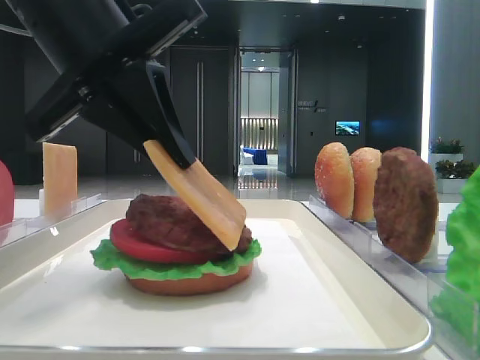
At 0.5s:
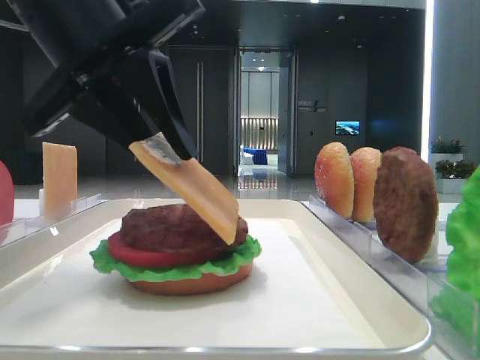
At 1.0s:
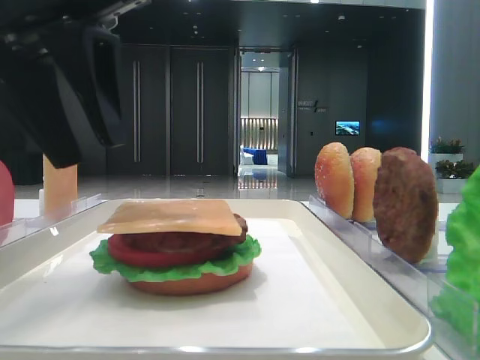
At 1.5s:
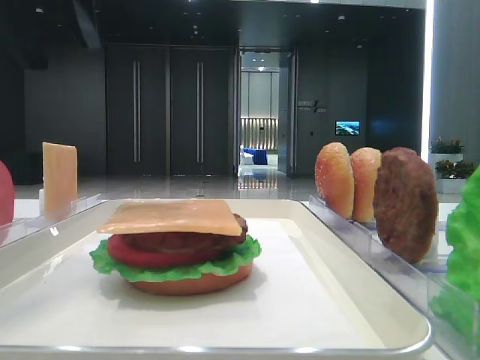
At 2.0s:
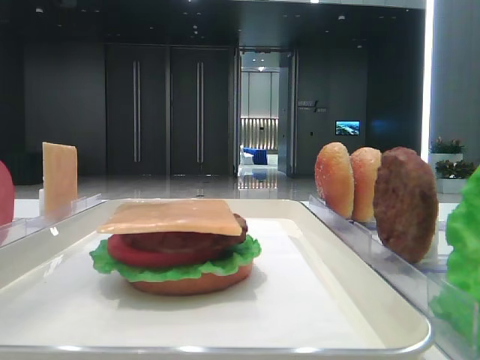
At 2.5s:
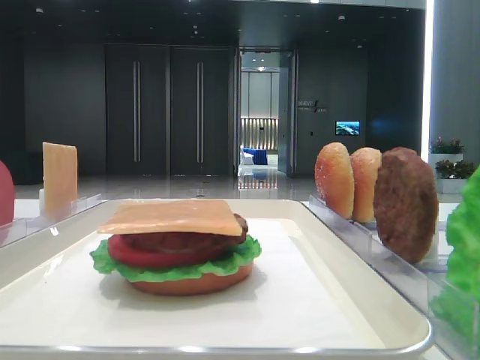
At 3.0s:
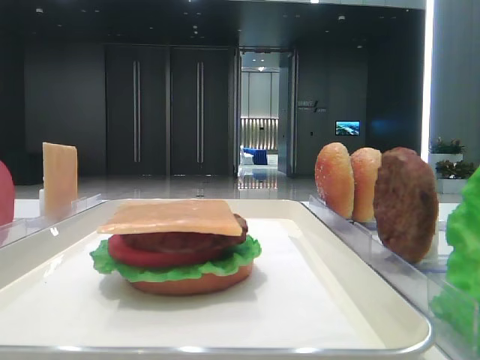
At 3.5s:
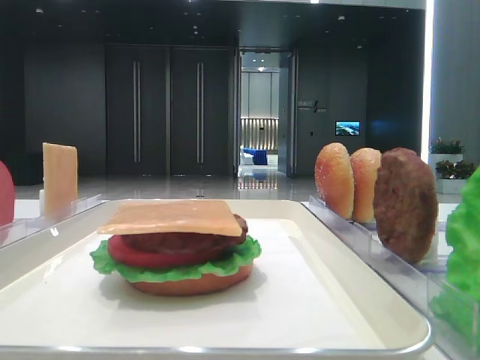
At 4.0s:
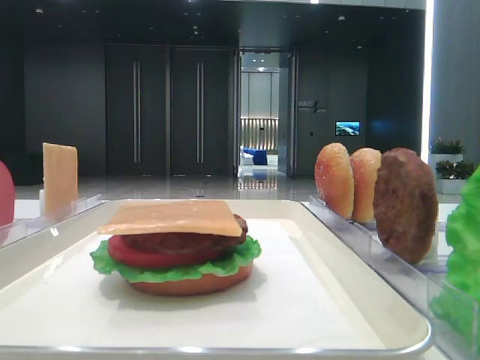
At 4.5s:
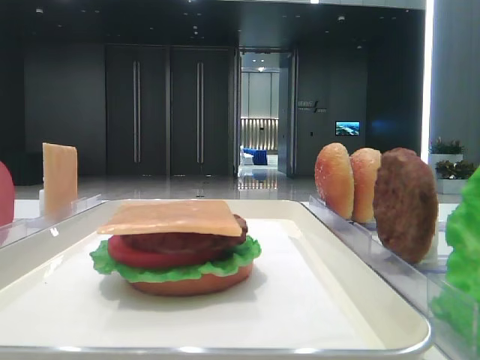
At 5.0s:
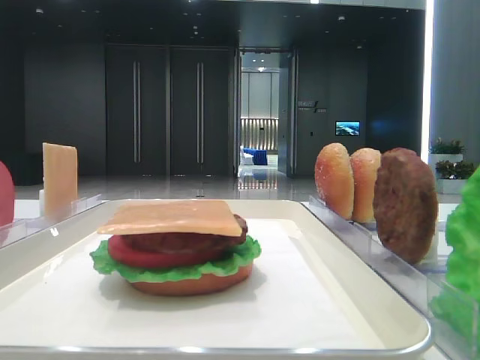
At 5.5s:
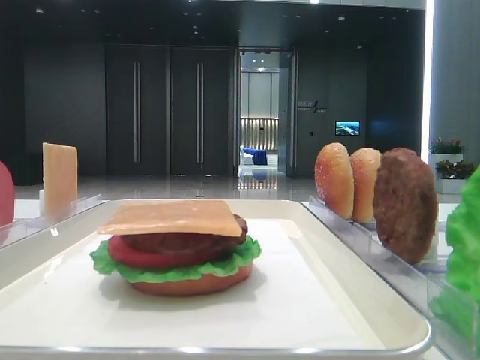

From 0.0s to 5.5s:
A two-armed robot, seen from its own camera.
From 0.0s to 2.0s: The left gripper shifts some 15 cm upward and to the left, and opens its fingers.
From 2.0s to 3.5s: The left gripper moves backward, to the left and downward, about 25 cm.

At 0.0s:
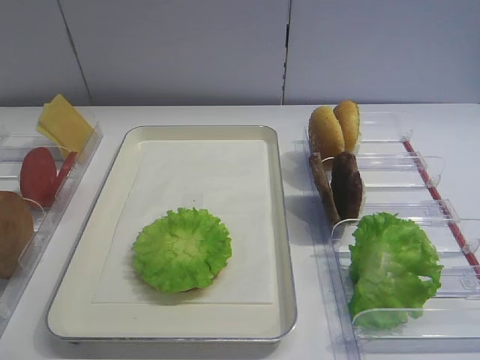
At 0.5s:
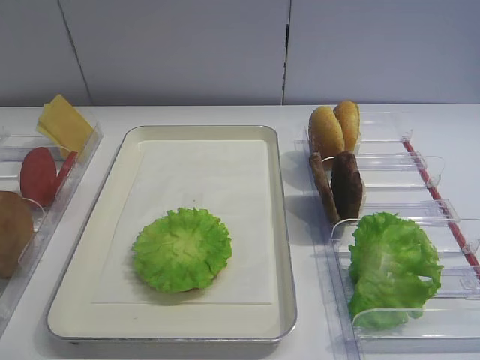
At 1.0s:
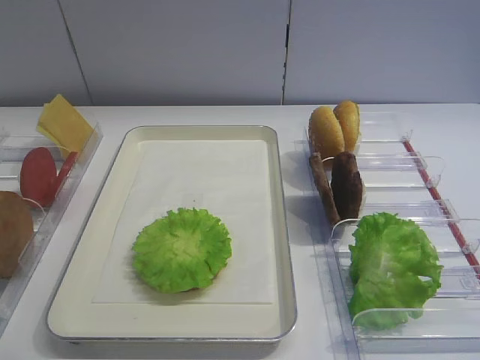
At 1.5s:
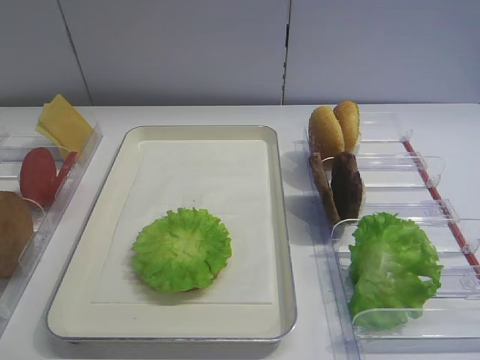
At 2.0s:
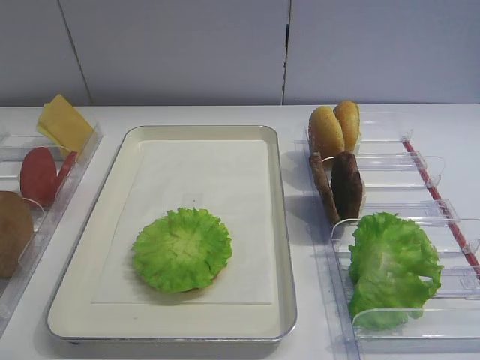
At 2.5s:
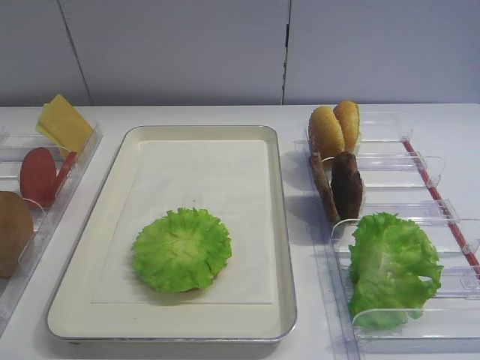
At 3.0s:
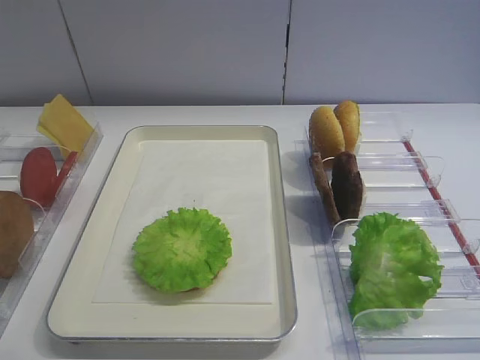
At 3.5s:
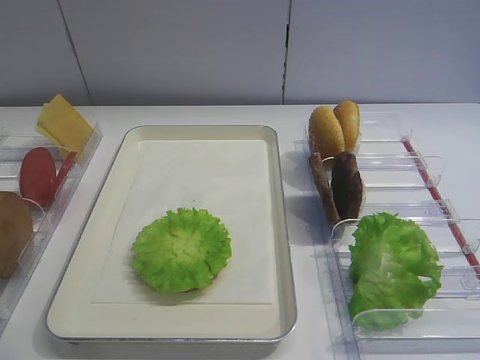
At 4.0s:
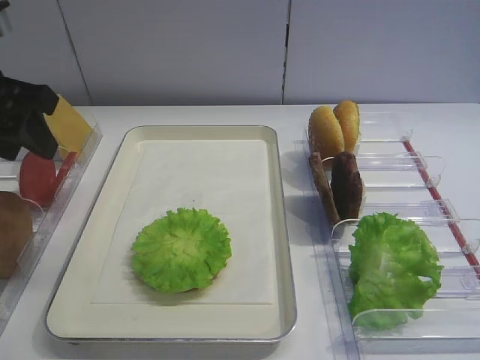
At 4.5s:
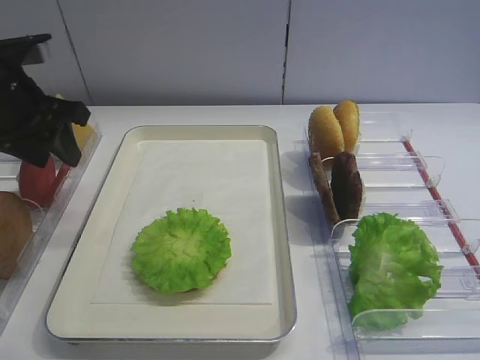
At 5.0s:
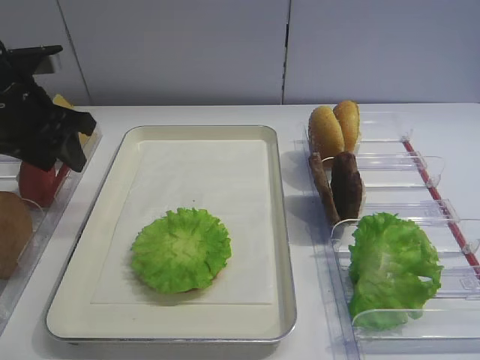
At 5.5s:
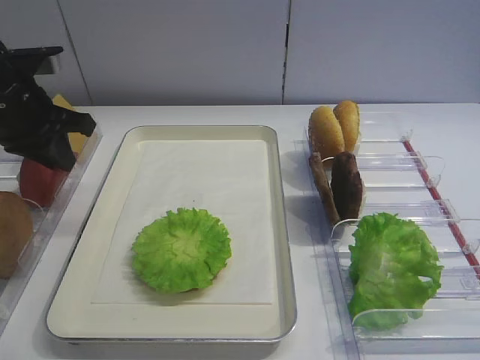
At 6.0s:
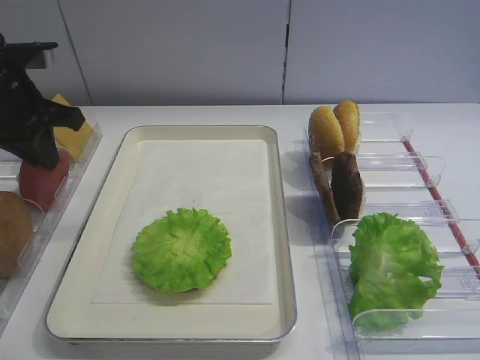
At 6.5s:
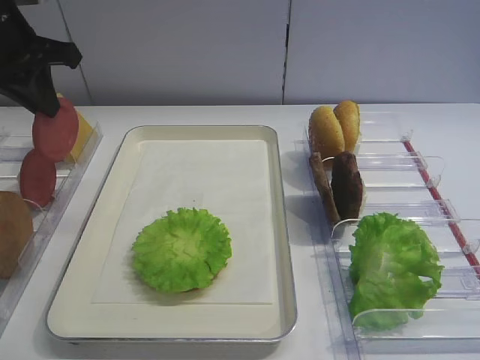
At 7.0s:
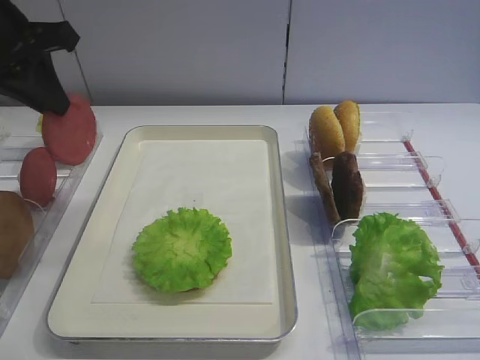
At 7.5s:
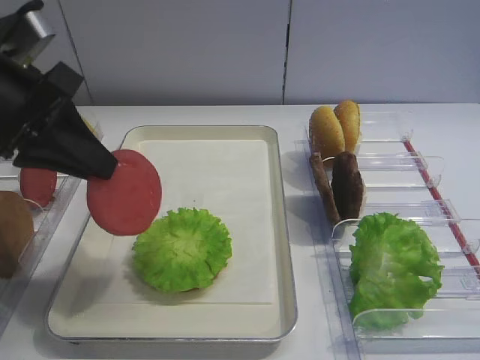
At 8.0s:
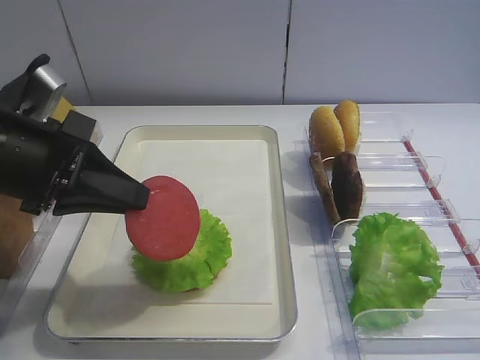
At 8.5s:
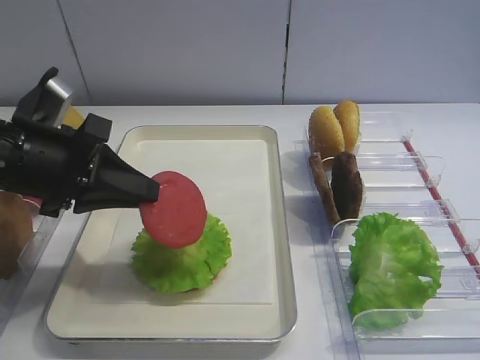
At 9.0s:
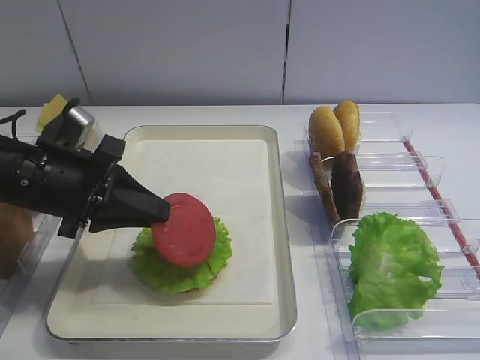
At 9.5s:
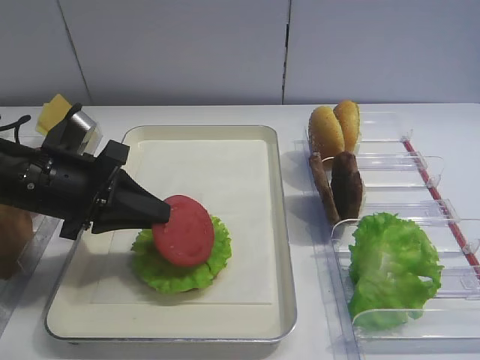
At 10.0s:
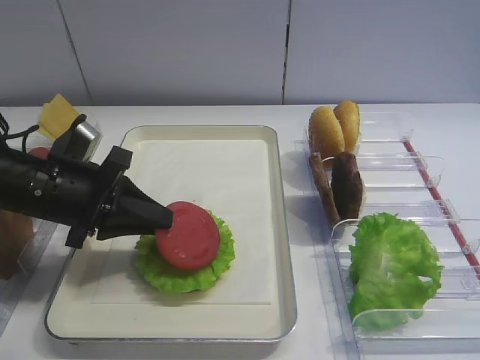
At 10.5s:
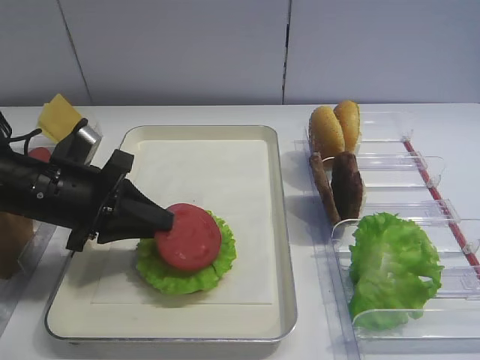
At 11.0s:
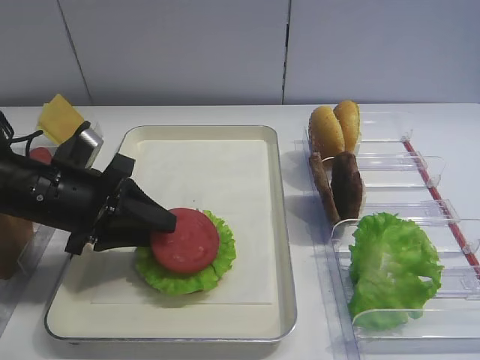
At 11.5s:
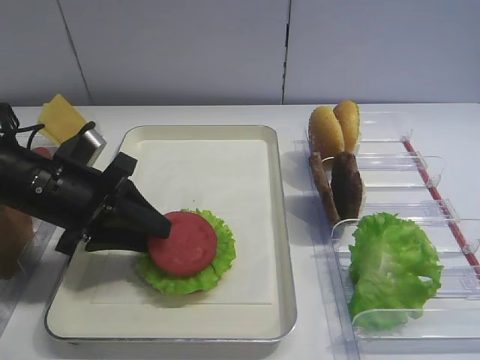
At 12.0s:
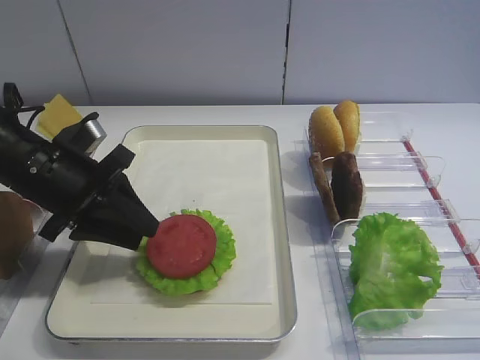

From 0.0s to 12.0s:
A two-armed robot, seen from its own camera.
Step, from 0.0s to 6.0s: Pick up the tomato slice with the left gripper.
Step, from 6.5s to 12.0s: Place the tomato slice on the lettuce leaf with the left gripper.
From 2.0s to 4.0s: The left gripper travels forward by about 30 cm.
From 4.0s to 6.0s: The left gripper moves forward and downward, about 10 cm, and closes up.
From 6.0s to 8.0s: The left gripper moves backward and to the right, approximately 15 cm.
From 8.0s to 10.0s: The left gripper shifts about 10 cm downward.
From 10.0s to 12.0s: The left gripper opens its fingers.

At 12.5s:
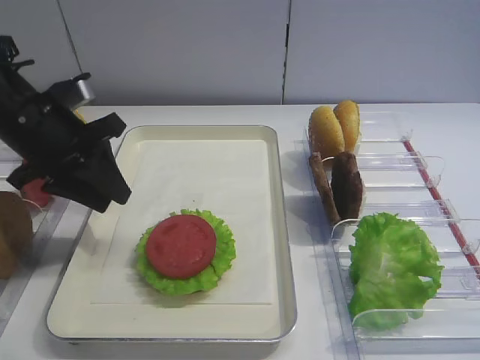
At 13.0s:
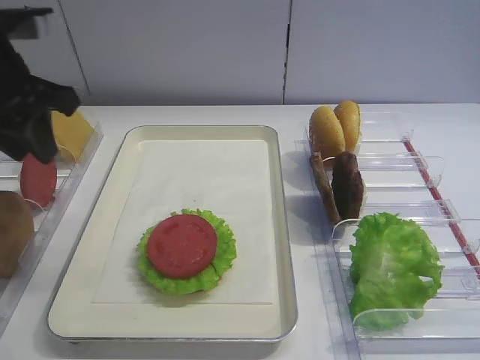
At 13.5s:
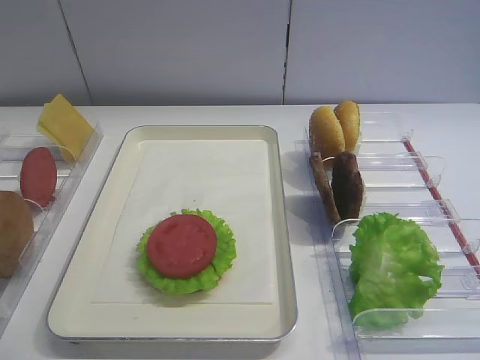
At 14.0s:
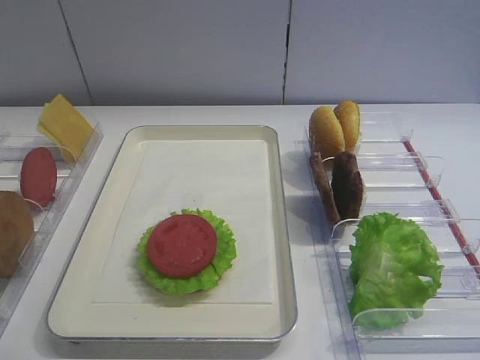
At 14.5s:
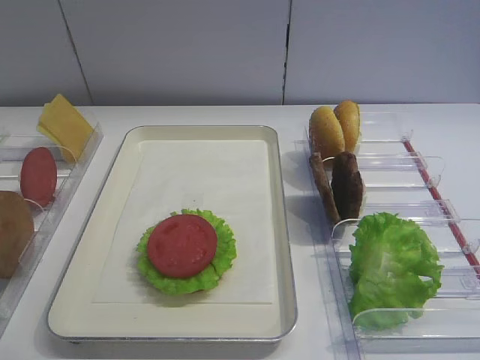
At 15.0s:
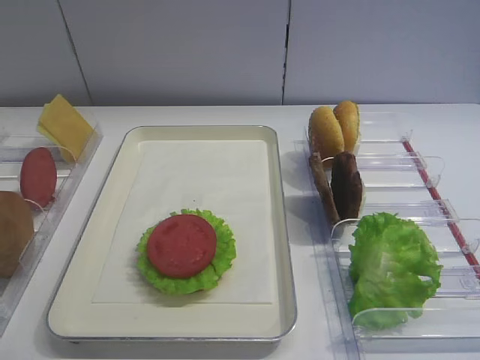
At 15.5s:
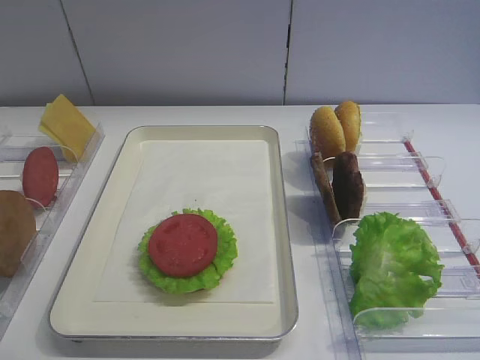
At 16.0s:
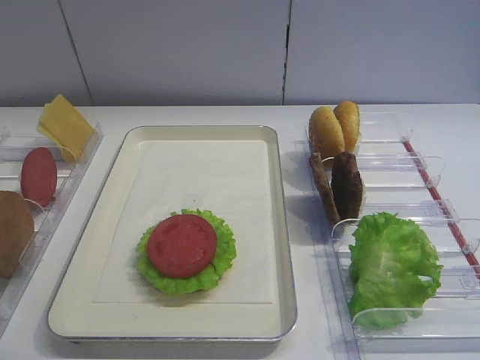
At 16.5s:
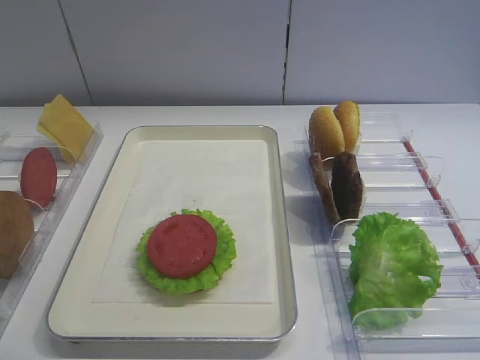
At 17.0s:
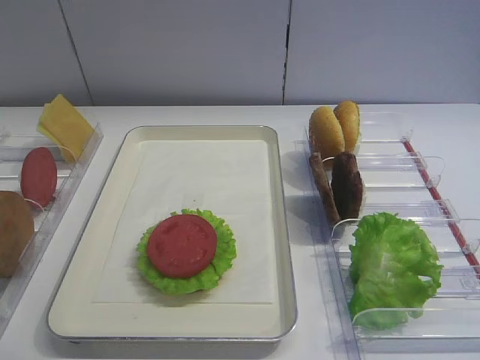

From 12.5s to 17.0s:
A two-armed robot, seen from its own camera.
From 12.5s to 14.5s: The left gripper goes some 30 cm backward.

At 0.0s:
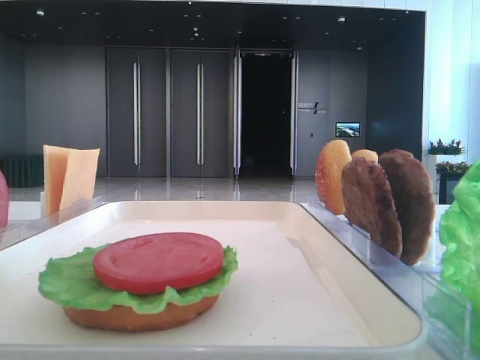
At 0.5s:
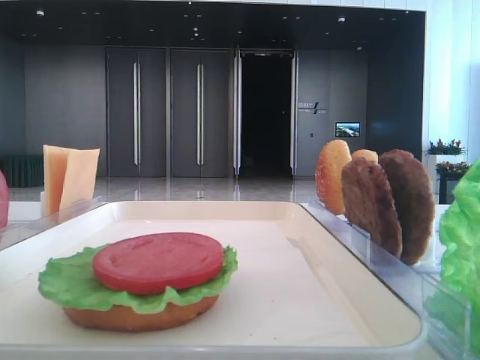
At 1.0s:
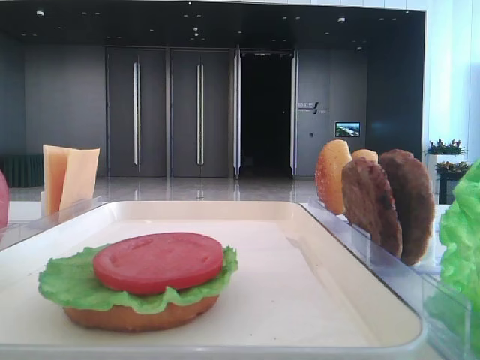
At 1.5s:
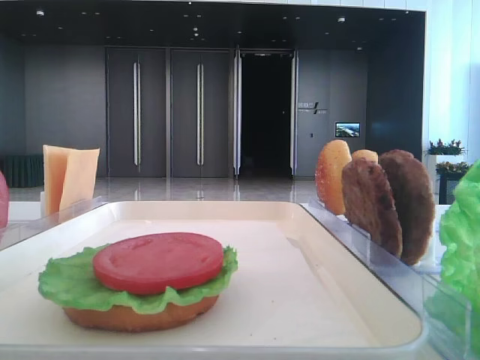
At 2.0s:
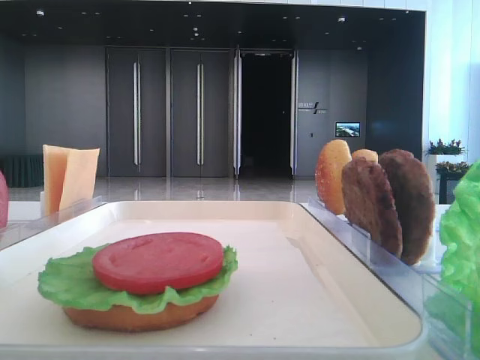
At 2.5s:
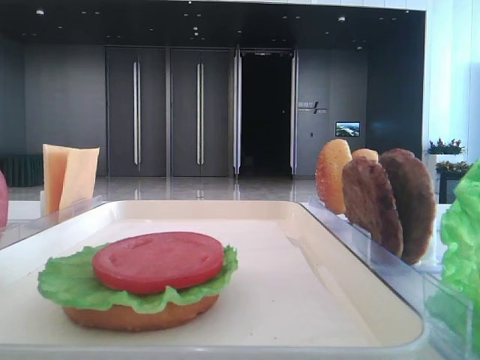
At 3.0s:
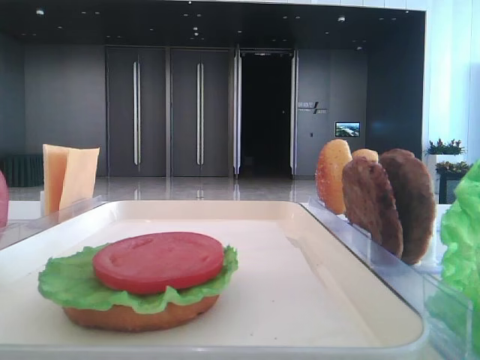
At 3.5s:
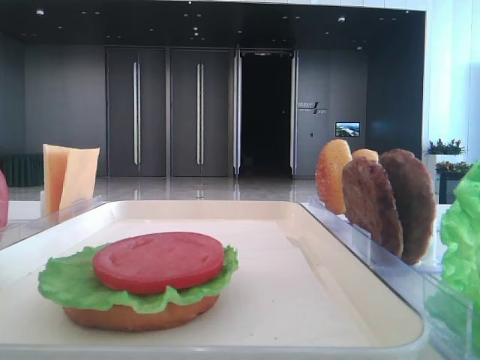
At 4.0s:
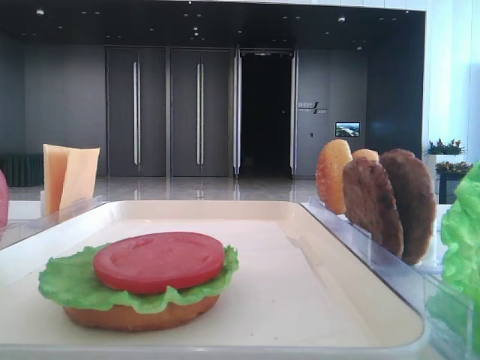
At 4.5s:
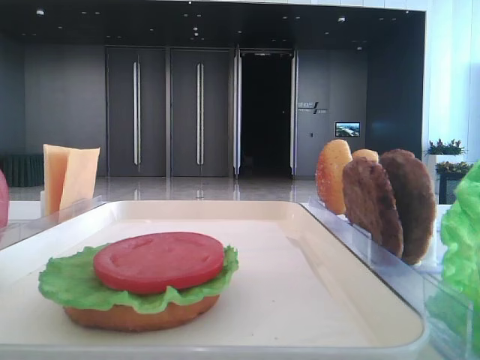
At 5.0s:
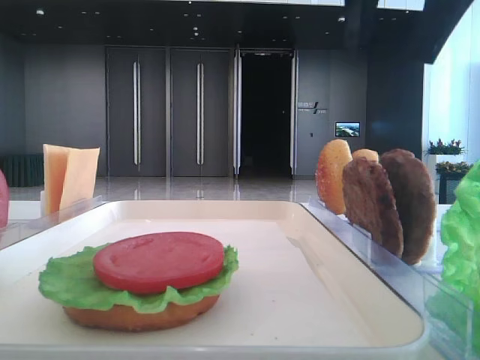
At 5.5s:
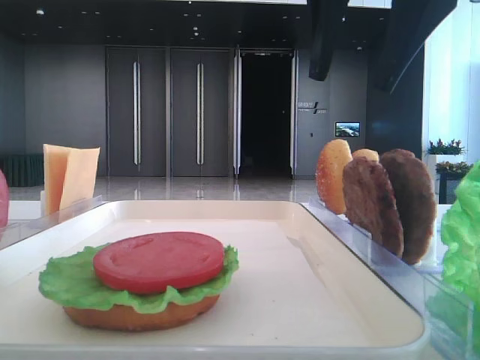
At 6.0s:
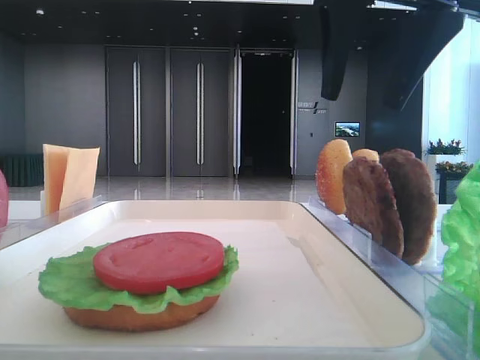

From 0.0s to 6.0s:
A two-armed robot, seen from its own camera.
From 4.0s to 6.0s: The right gripper heads downward and forward, covering about 10 cm.
